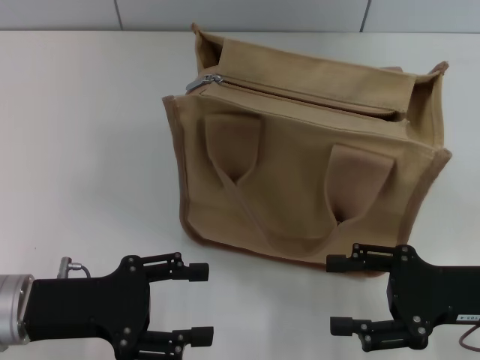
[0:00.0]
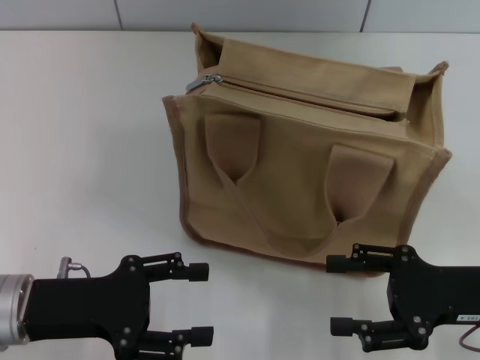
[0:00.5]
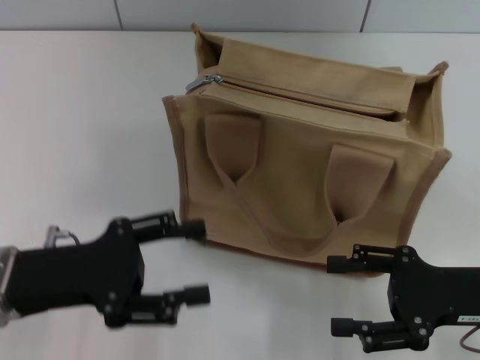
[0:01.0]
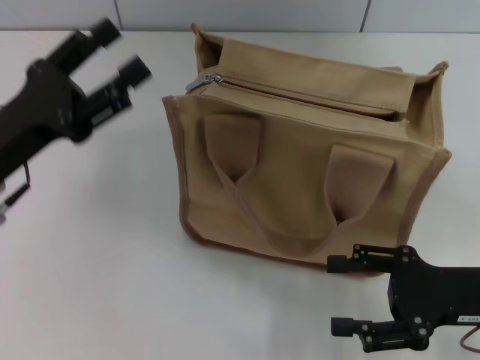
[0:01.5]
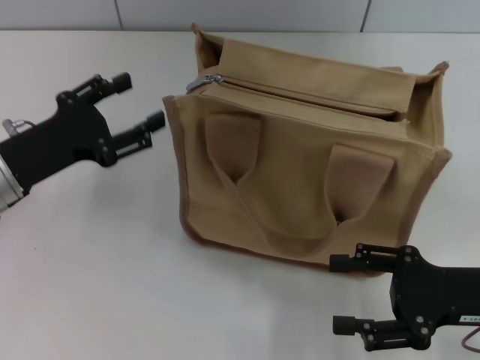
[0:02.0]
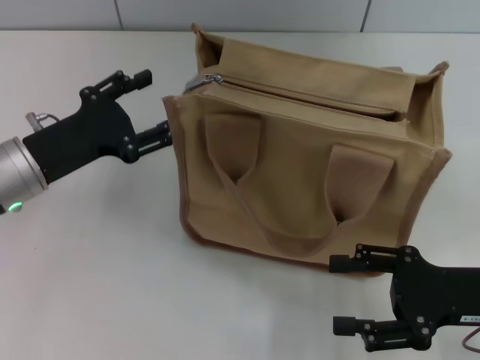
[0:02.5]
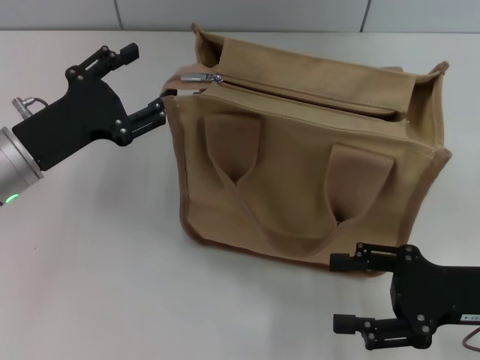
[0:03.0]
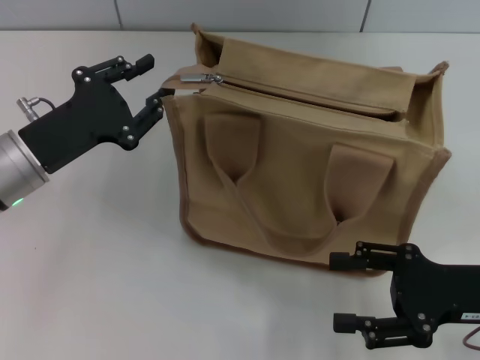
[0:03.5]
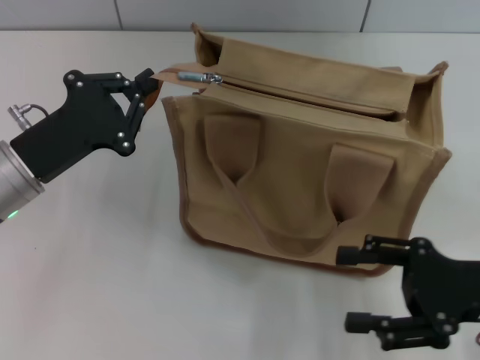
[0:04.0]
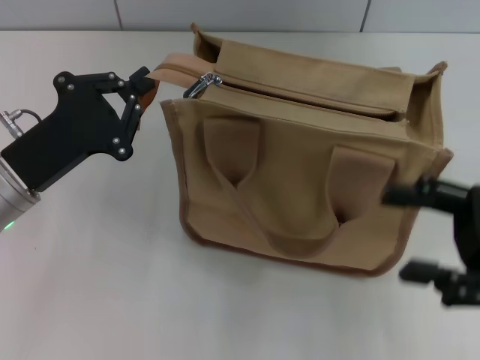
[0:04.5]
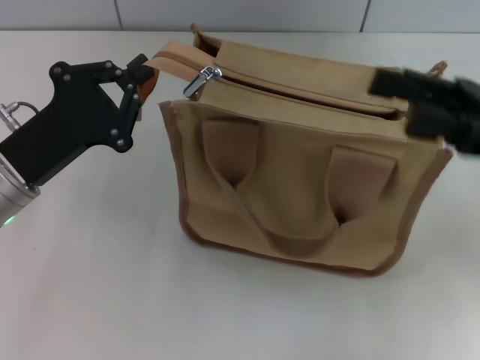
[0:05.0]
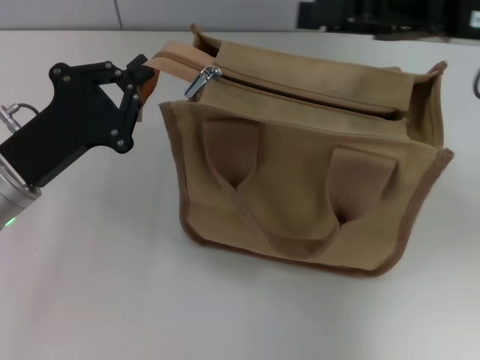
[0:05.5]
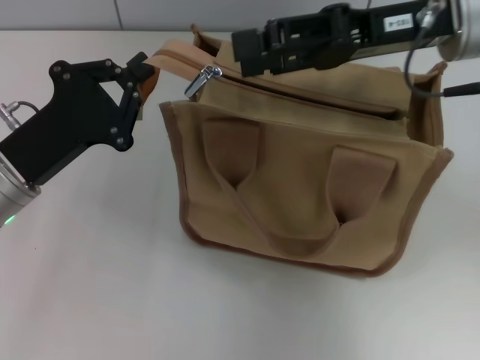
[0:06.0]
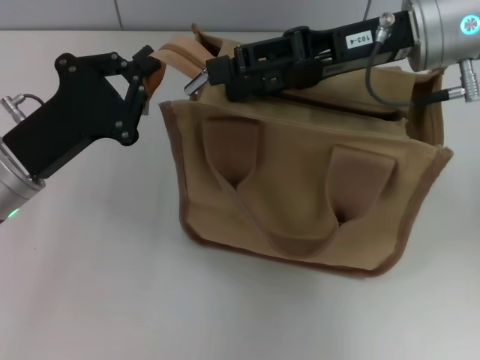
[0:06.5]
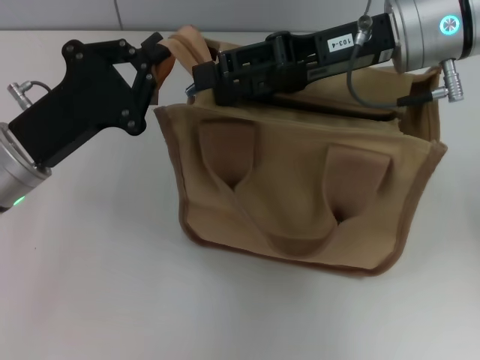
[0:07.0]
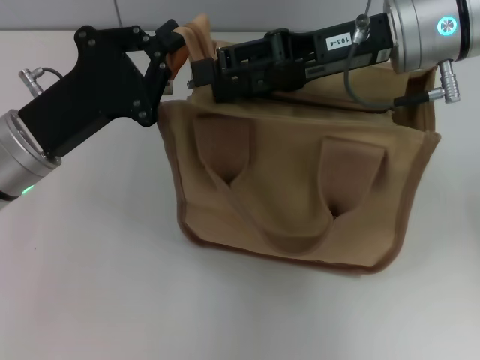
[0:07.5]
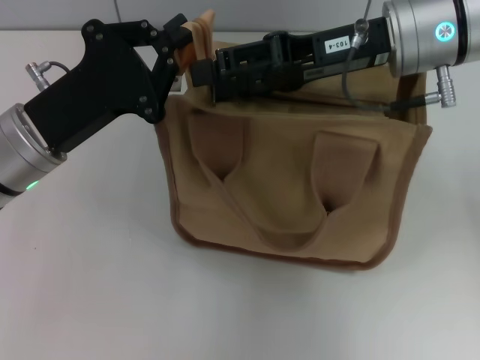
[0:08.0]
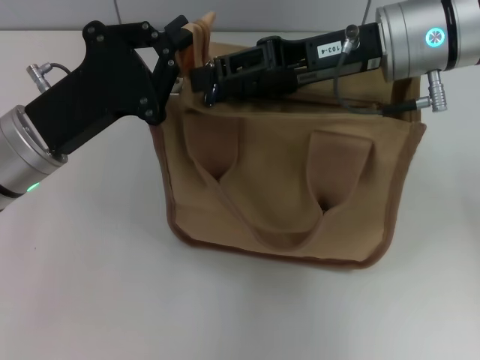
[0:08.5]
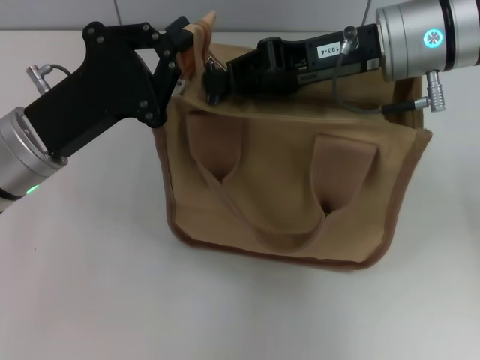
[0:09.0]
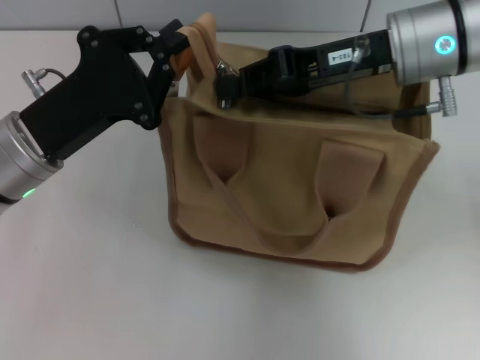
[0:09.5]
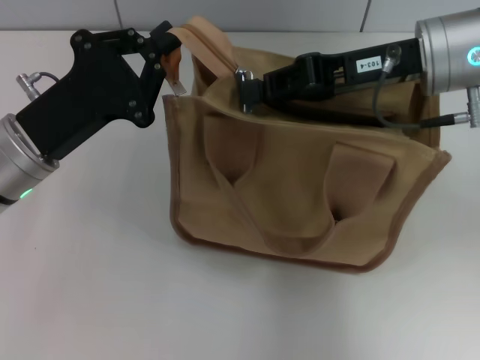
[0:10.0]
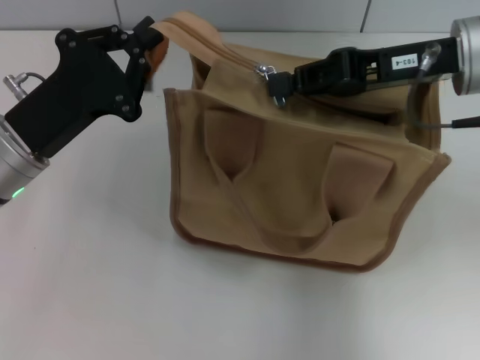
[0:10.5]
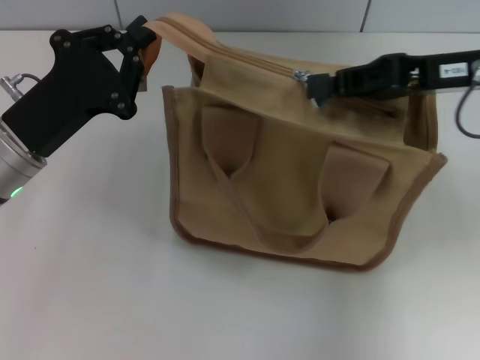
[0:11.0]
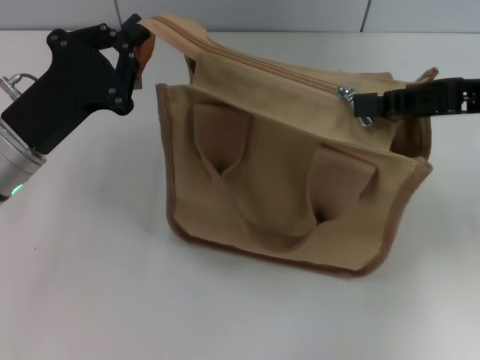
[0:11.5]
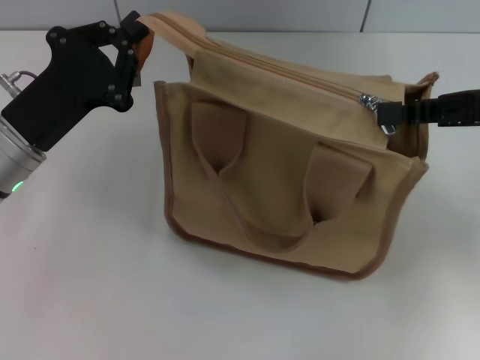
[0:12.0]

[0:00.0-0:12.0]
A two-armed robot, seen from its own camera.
0:00.0 to 0:02.0: The left gripper travels forward by some 10 cm.
0:02.0 to 0:04.0: The left gripper closes up.
0:04.0 to 0:06.0: The right gripper travels forward, upward and to the left by some 25 cm.
0:08.0 to 0:10.0: The right gripper closes.
0:10.0 to 0:12.0: The right gripper travels to the right by roughly 10 cm.

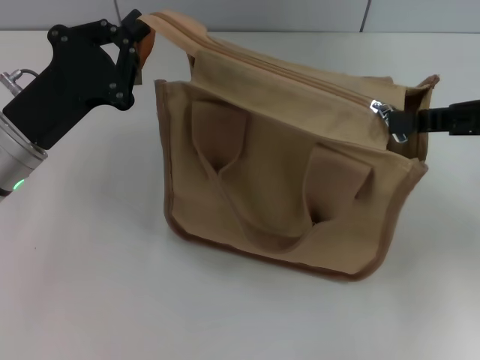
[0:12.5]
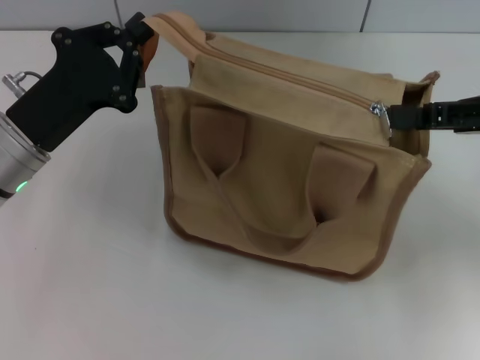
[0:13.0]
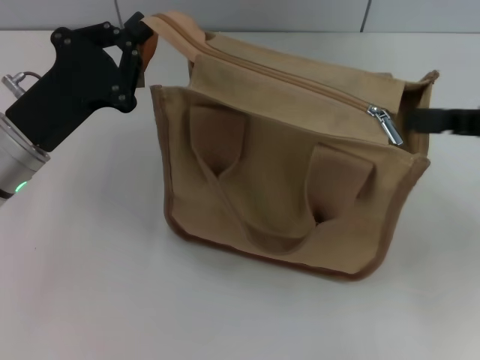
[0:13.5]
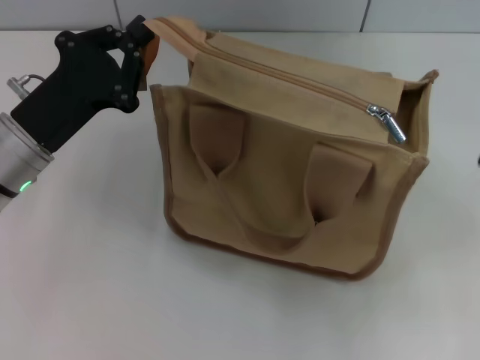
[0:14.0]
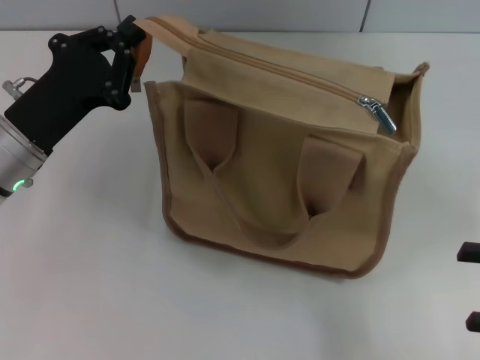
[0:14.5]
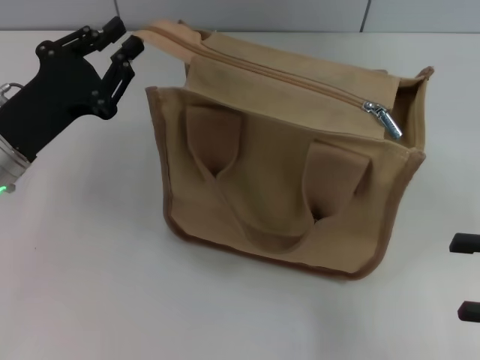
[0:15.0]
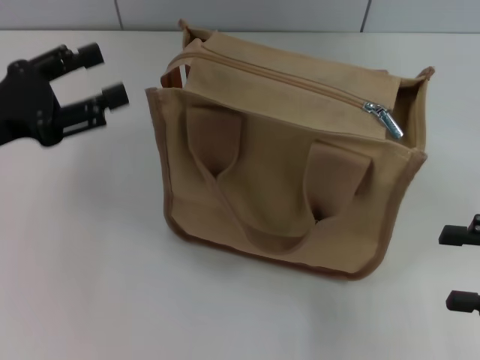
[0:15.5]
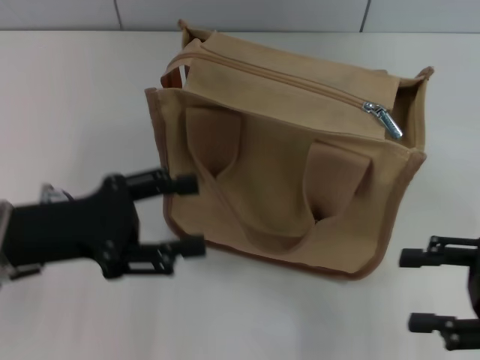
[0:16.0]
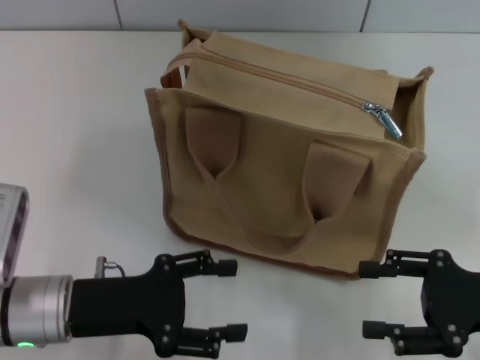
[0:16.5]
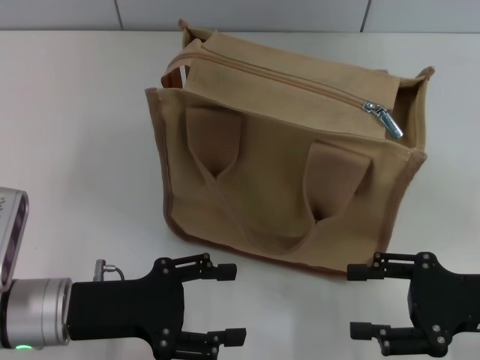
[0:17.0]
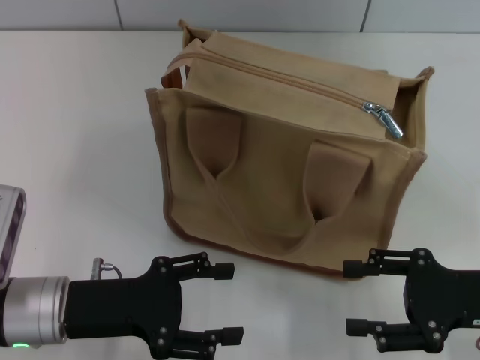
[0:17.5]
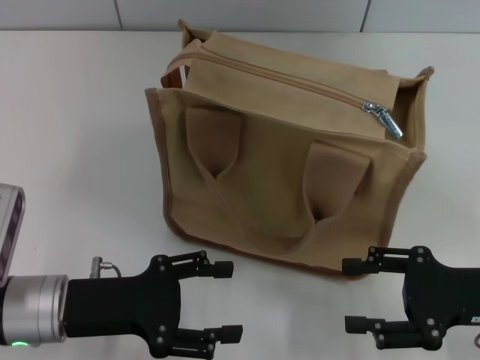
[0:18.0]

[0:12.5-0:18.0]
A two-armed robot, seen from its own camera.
Step, 0:14.0 to 0:15.0: Grab the zipper with your left hand.
0:12.5 to 0:14.5: The right gripper moves backward, downward and to the right, approximately 15 cm, and opens.
0:14.5 to 0:16.0: The left gripper moves backward, some 5 cm, and opens up.
0:16.0 to 0:18.0: The right gripper changes place by some 5 cm. Meanwhile the left gripper shifts roughly 5 cm downward.
